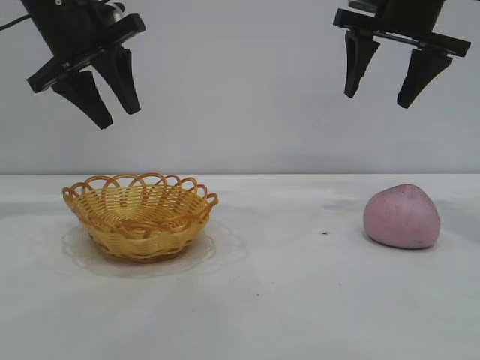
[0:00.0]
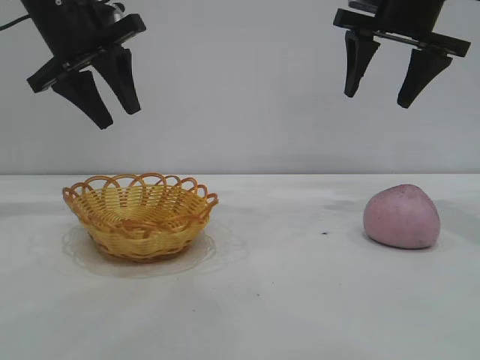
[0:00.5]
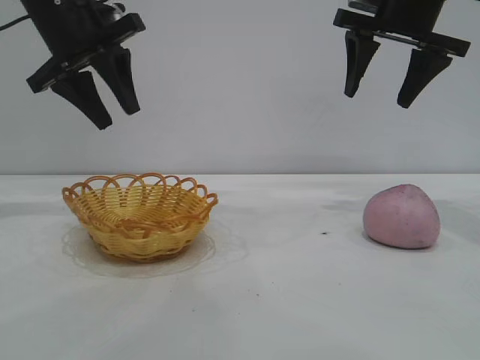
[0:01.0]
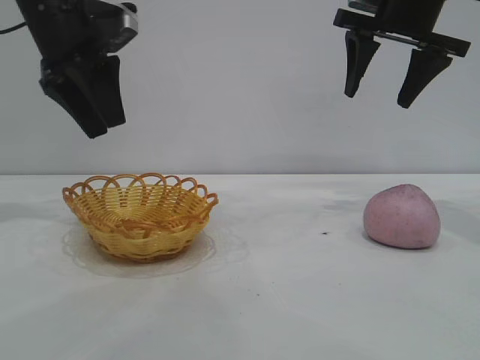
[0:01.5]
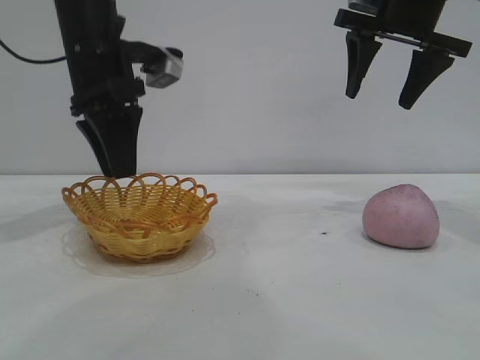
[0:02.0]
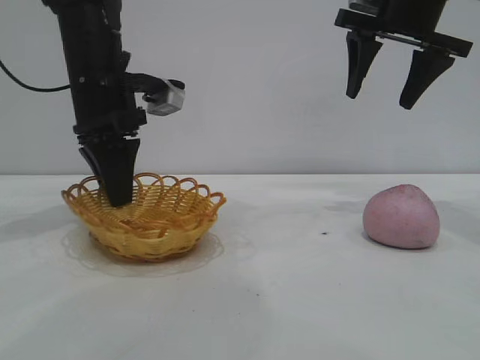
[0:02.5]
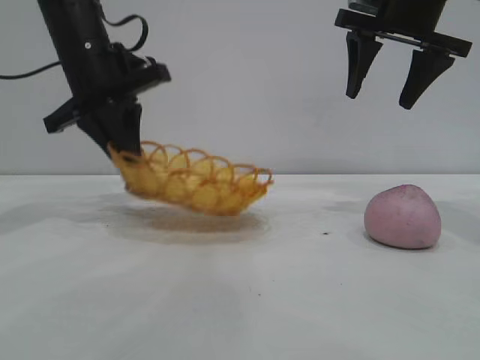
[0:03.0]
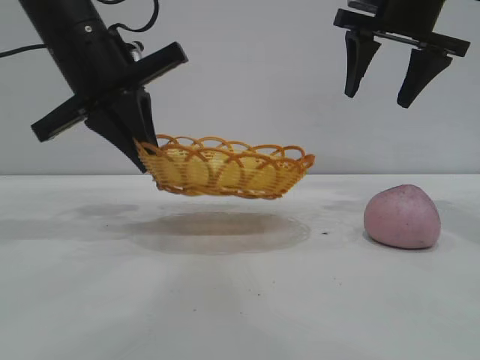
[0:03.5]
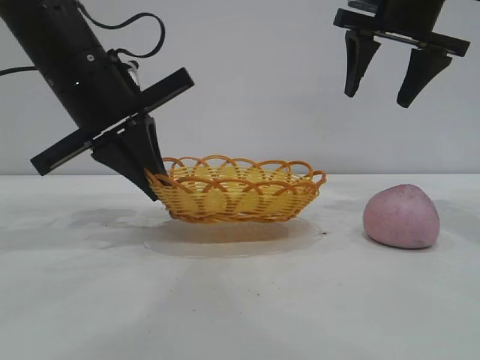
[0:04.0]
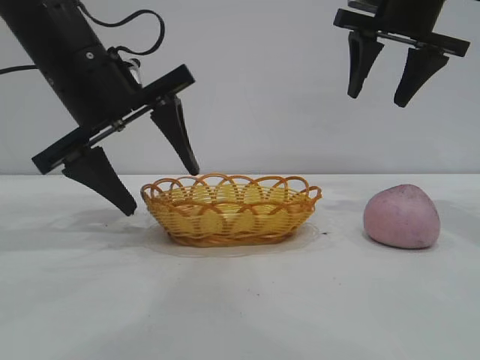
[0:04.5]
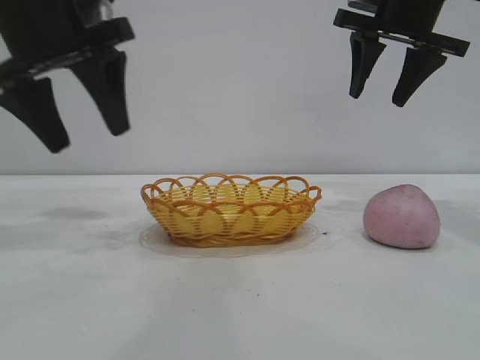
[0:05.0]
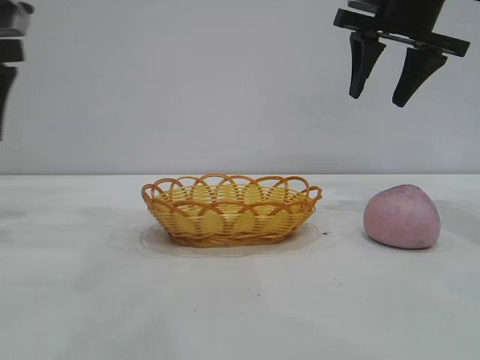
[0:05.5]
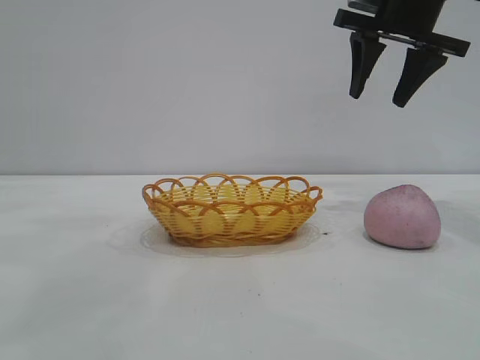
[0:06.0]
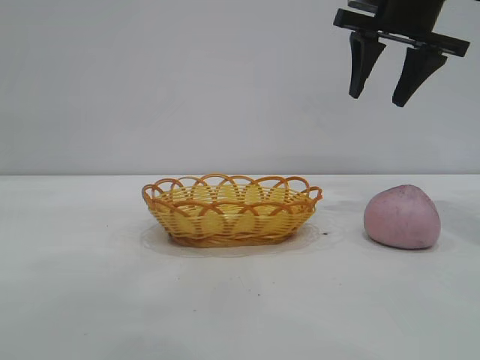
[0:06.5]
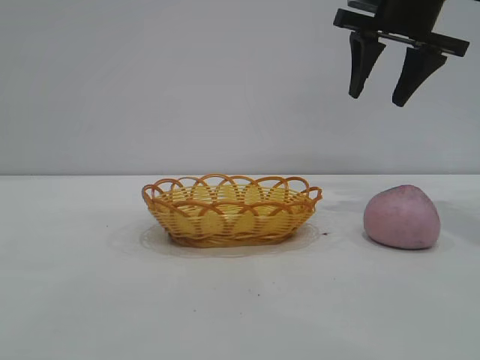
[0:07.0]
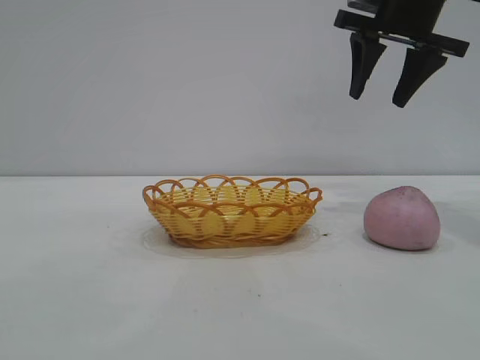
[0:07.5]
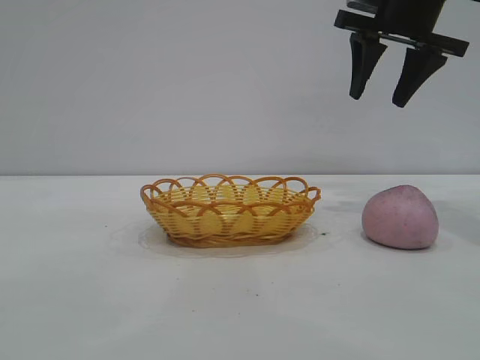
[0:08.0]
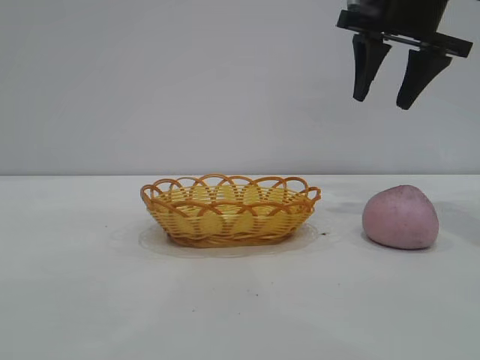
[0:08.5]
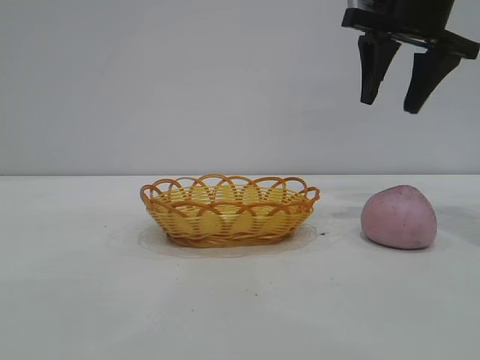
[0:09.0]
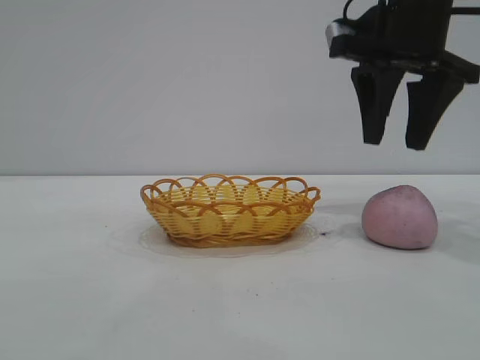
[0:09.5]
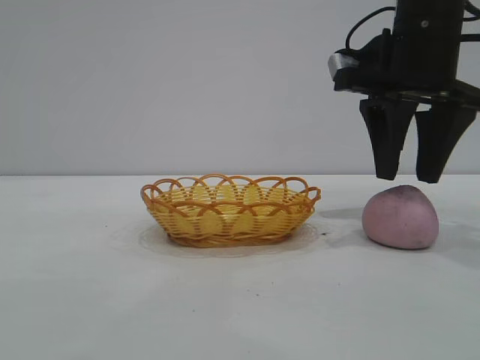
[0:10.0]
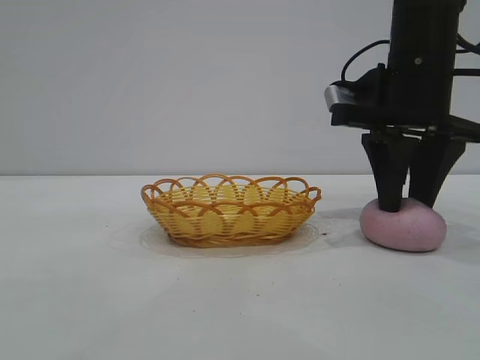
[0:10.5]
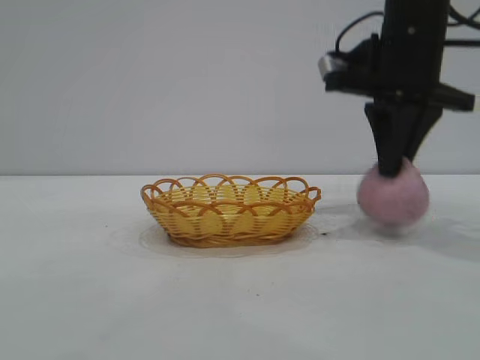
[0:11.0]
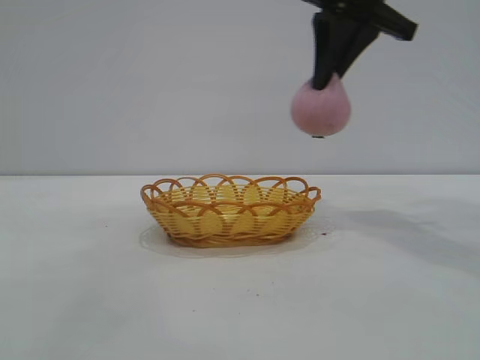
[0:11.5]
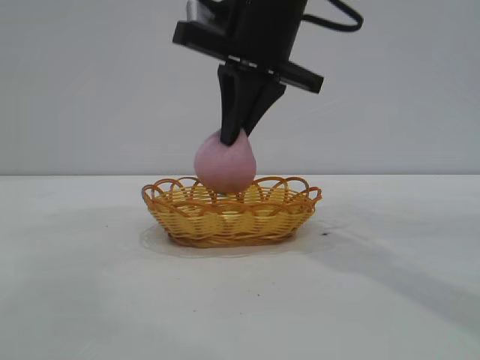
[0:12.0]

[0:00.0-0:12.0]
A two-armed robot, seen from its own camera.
Task of the whole recording: pick up the peach and put it into the basket.
Step, 0:00.0 to 0:04.5: Move the basket to the center of view.
Step, 0:05.0 to 0:11.0: Pick up the peach.
